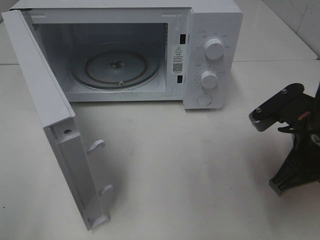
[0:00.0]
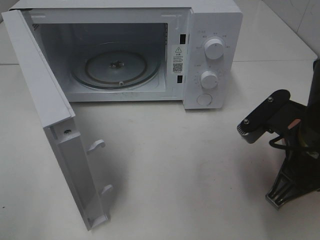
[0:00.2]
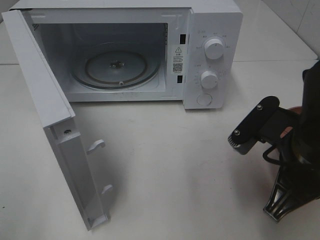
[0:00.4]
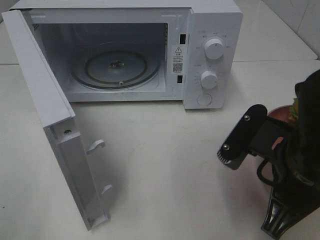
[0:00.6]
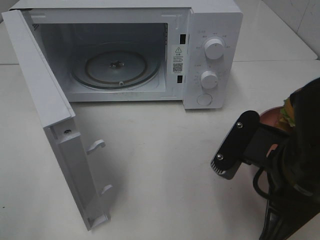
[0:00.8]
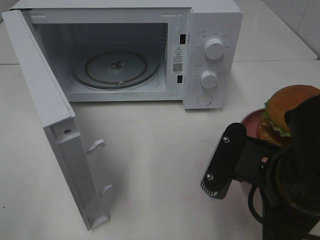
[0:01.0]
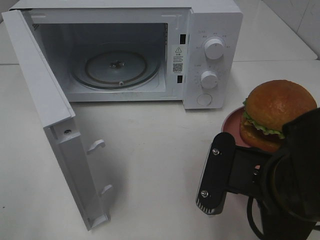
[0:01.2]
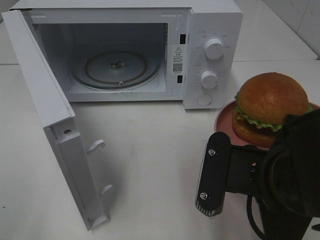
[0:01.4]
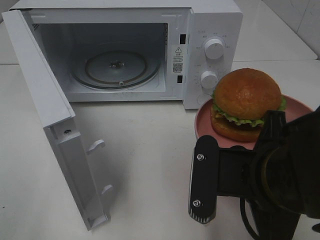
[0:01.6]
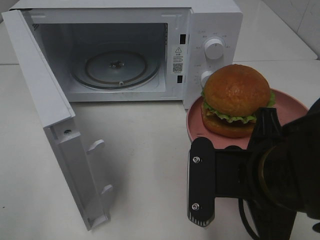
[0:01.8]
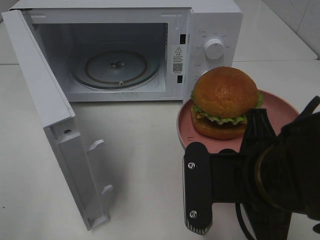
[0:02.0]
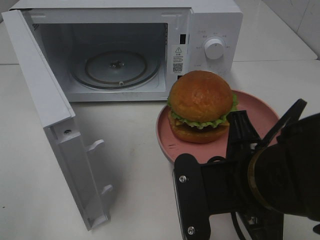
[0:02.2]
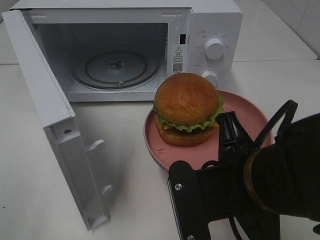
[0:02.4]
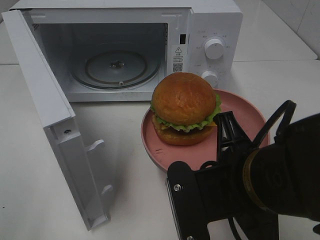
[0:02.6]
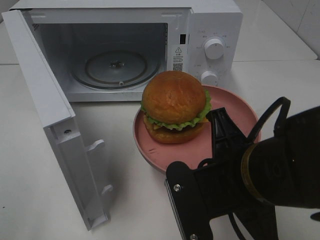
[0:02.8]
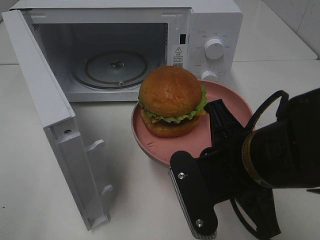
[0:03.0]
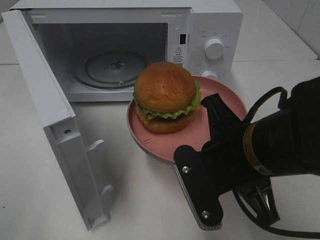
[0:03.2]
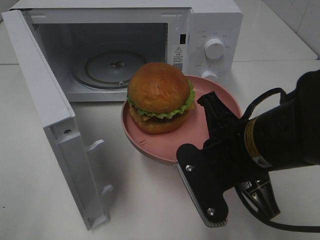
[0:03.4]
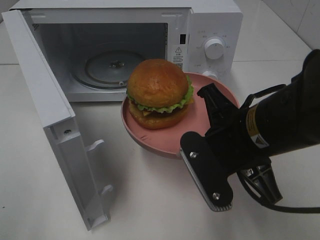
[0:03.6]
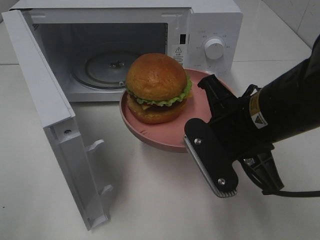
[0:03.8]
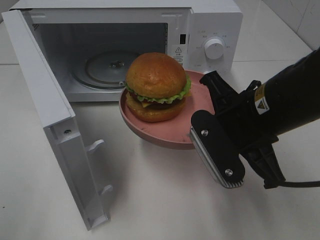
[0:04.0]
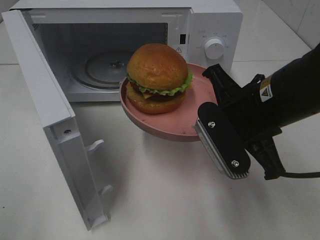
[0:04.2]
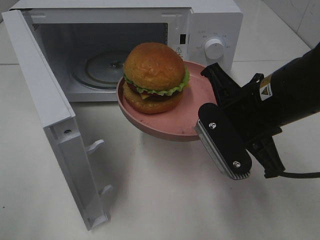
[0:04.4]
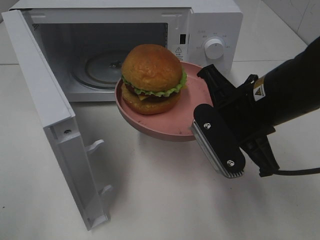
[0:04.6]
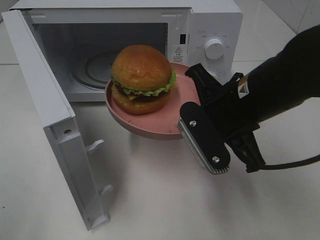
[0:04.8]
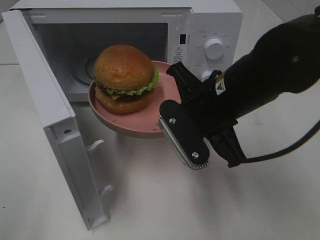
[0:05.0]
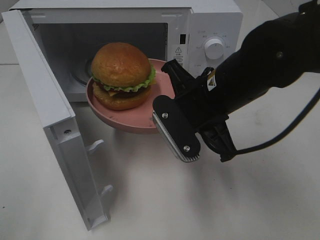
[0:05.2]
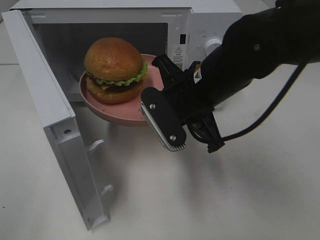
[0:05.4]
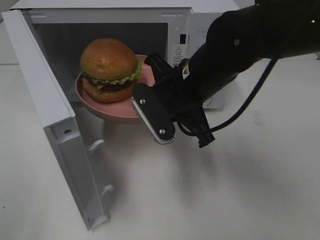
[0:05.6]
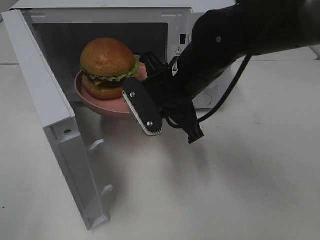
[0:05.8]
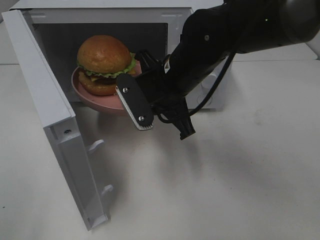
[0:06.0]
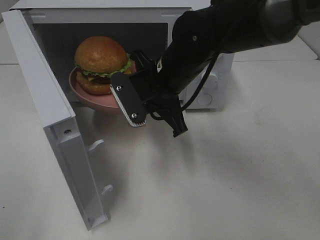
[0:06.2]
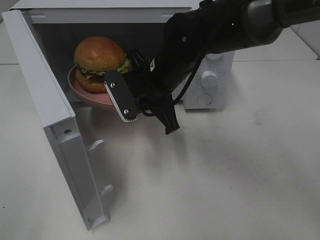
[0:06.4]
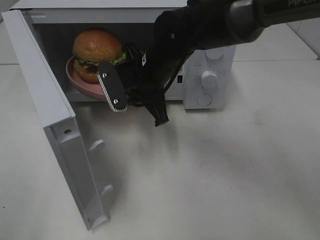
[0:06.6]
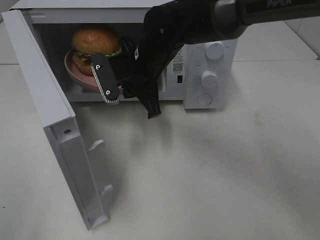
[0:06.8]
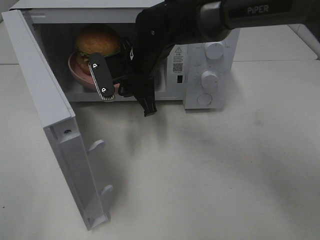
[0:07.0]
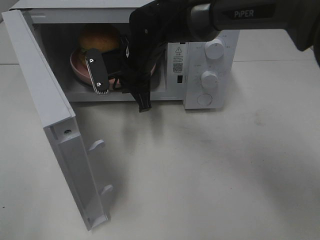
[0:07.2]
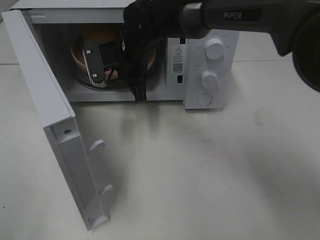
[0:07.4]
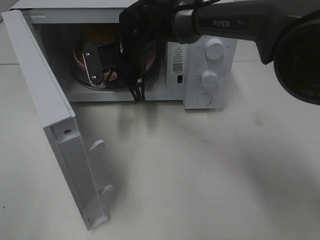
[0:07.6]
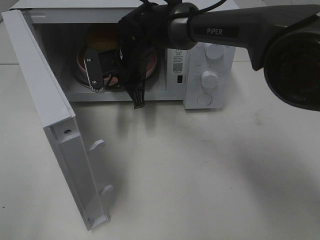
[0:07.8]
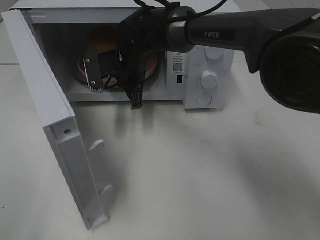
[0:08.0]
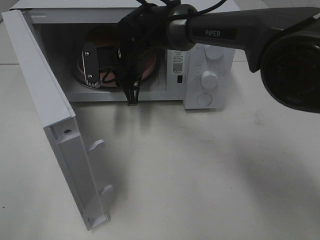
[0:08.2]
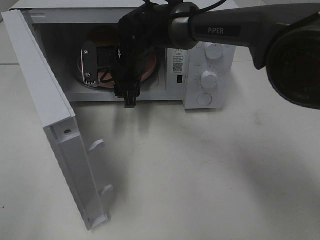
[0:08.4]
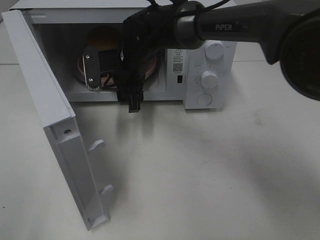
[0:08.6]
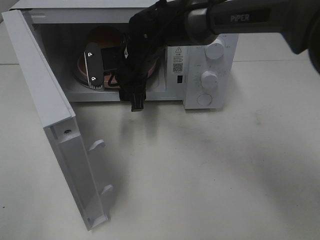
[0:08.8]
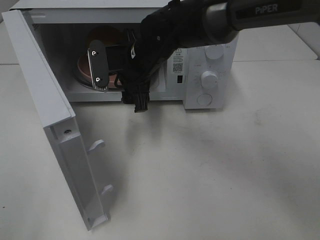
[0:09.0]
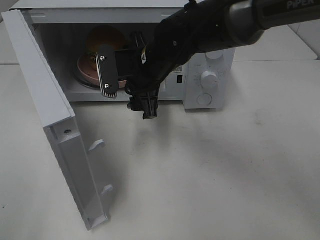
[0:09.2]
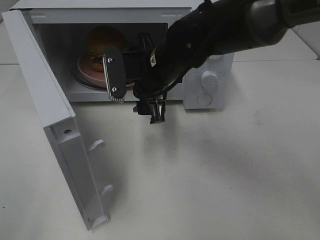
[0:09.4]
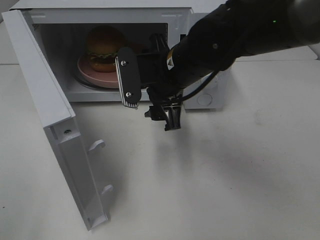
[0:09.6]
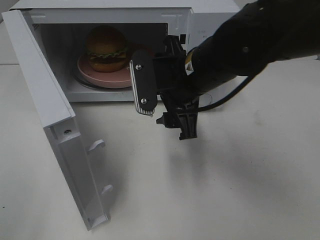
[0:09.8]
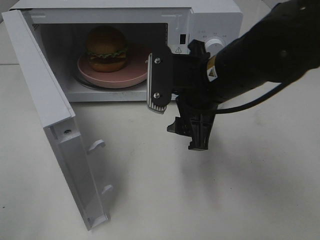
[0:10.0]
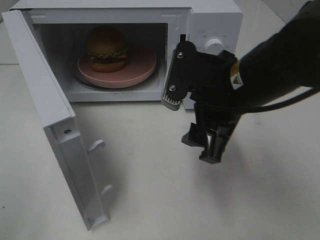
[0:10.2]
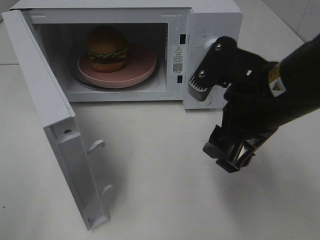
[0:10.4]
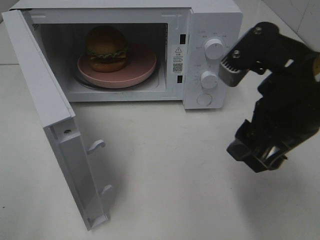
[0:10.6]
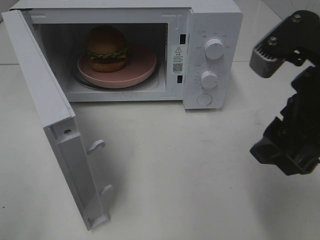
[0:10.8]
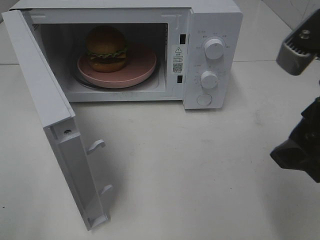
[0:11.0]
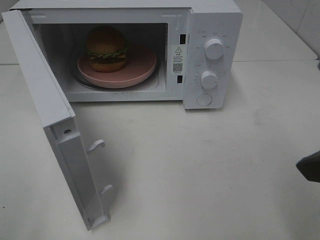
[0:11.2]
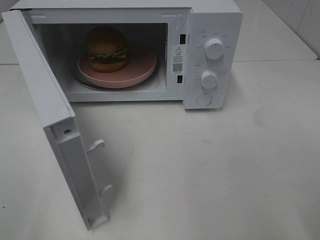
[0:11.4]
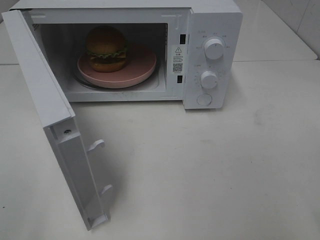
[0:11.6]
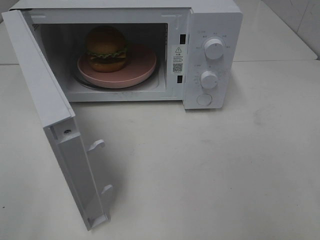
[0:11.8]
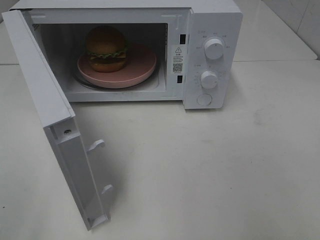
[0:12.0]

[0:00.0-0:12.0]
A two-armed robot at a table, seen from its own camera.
Task of the whole recording: Heat the burger.
Step, 0:00.0 to 0:08.6: Right hand: place the plate in the microwave.
0:00.0 to 0:01.6: The right gripper moves to the left and backward, approximately 10 cm.
0:03.0 to 0:04.4: The right gripper moves forward, about 5 cm.
0:04.4 to 0:06.0: The right gripper moves to the left and forward, about 15 cm.
0:06.0 to 0:07.6: The right gripper moves forward and to the left, some 15 cm.
0:07.6 to 0:09.0: The right gripper changes place by approximately 5 cm, and opens up.
0:09.0 to 0:10.4: The right gripper heads backward and to the right, covering some 25 cm.
0:10.4 to 0:12.0: The right gripper is displaced to the right and backward by about 20 cm.

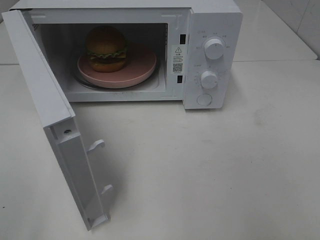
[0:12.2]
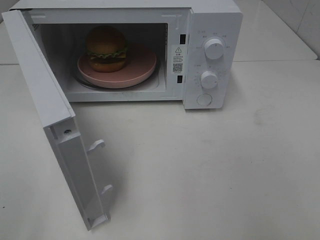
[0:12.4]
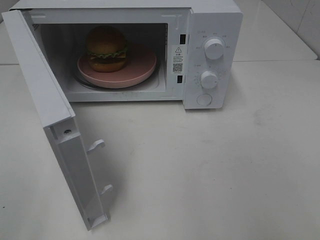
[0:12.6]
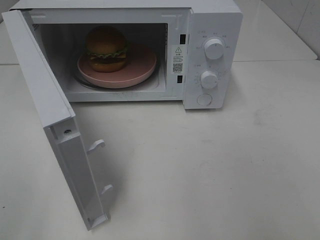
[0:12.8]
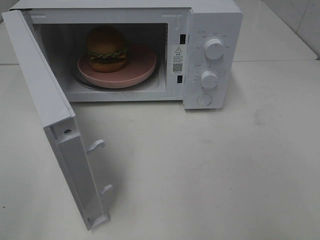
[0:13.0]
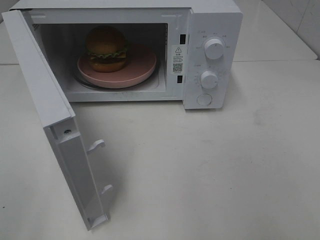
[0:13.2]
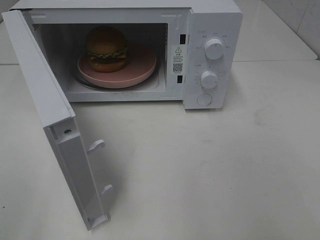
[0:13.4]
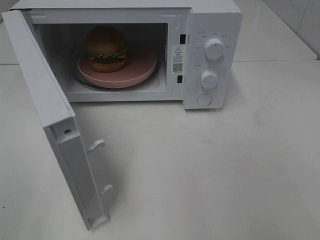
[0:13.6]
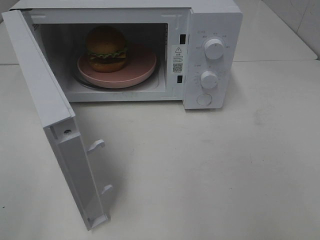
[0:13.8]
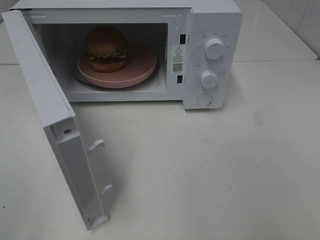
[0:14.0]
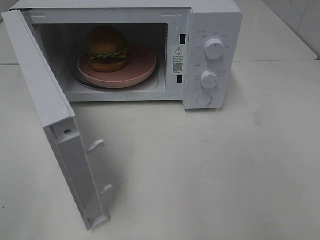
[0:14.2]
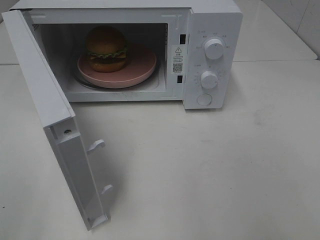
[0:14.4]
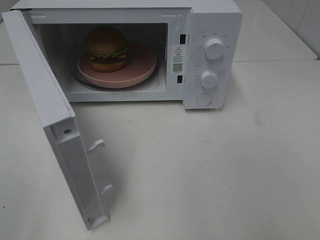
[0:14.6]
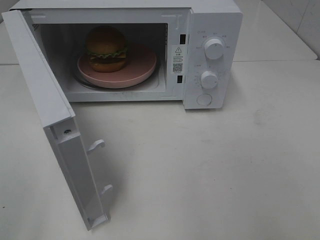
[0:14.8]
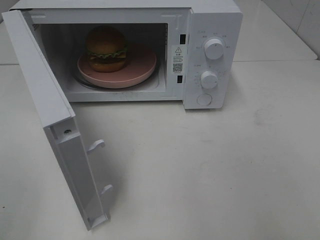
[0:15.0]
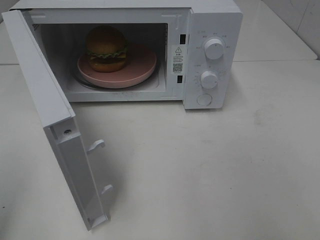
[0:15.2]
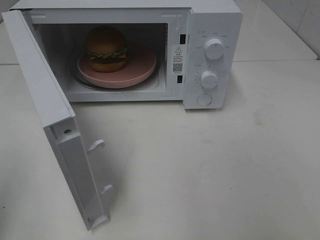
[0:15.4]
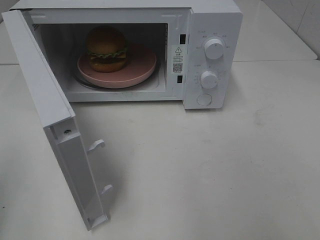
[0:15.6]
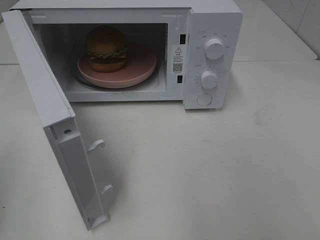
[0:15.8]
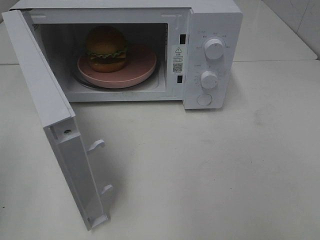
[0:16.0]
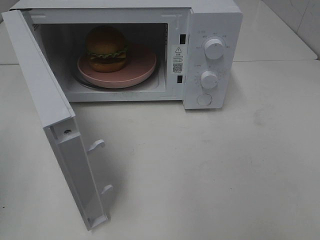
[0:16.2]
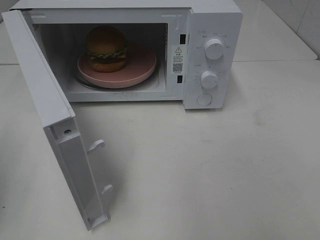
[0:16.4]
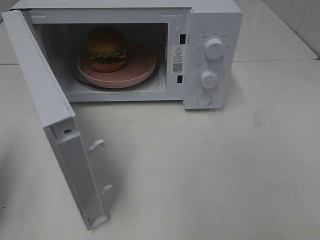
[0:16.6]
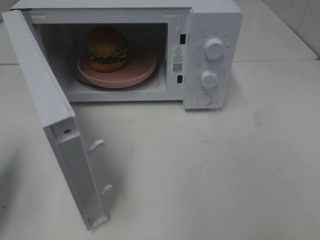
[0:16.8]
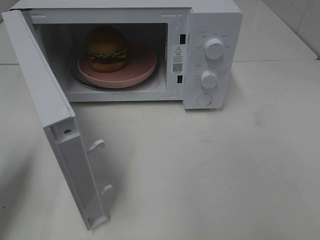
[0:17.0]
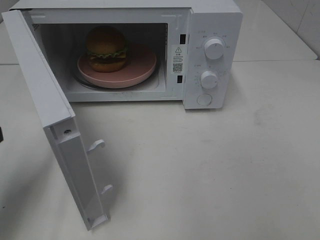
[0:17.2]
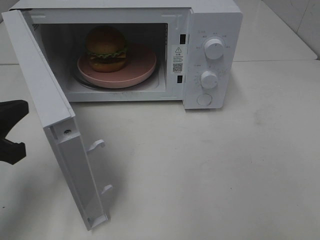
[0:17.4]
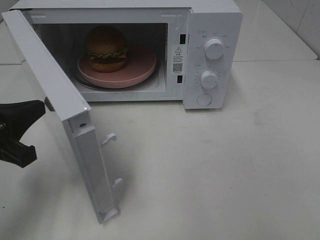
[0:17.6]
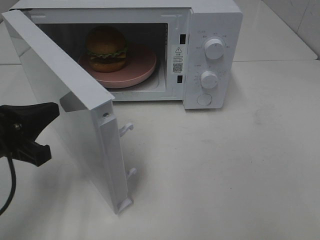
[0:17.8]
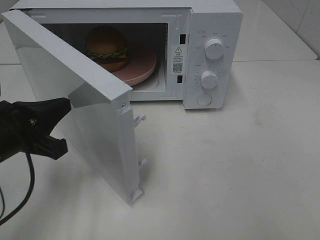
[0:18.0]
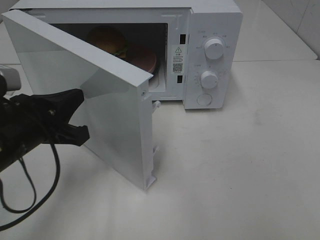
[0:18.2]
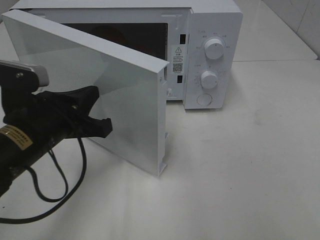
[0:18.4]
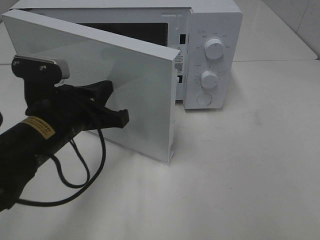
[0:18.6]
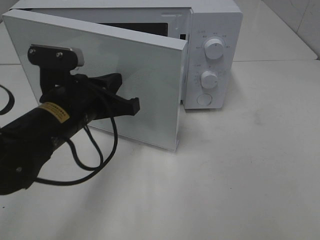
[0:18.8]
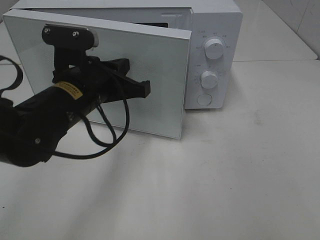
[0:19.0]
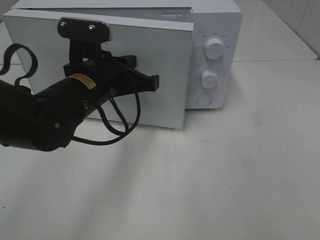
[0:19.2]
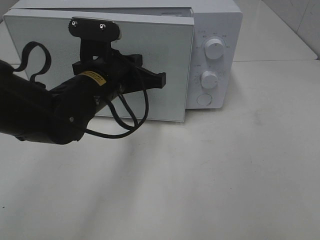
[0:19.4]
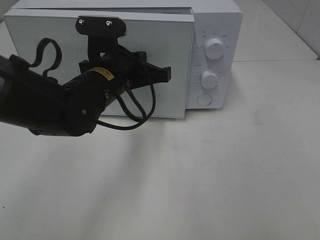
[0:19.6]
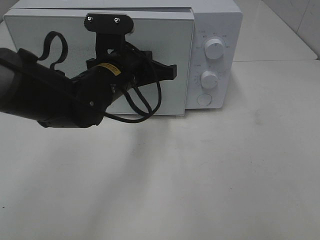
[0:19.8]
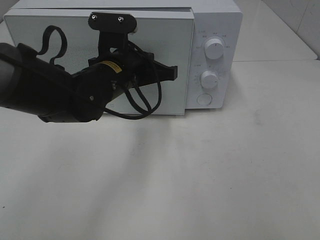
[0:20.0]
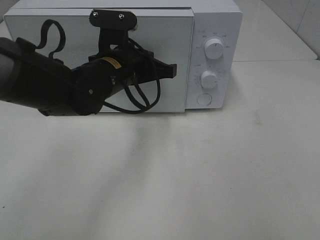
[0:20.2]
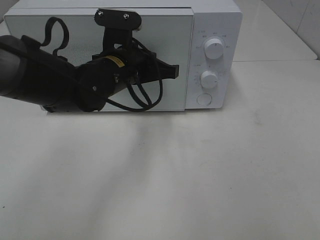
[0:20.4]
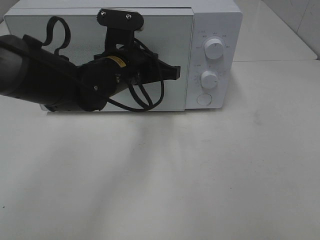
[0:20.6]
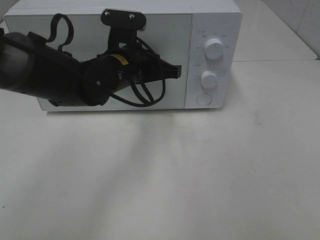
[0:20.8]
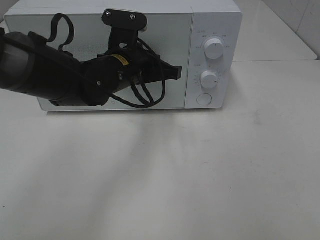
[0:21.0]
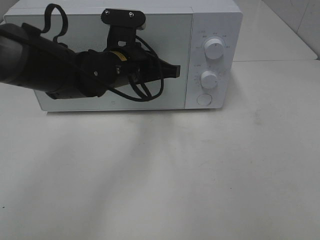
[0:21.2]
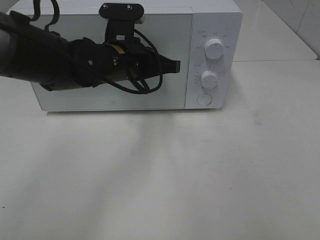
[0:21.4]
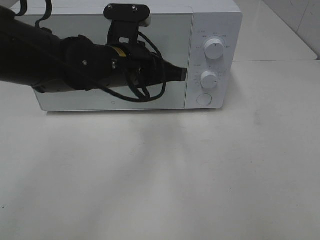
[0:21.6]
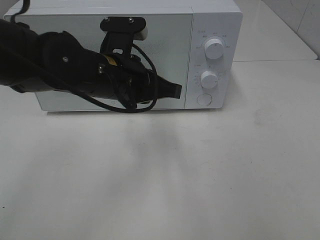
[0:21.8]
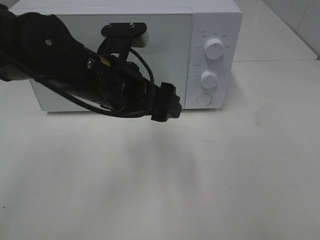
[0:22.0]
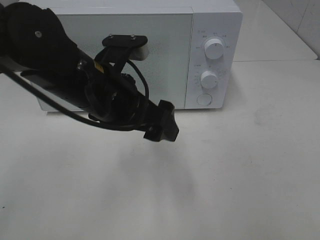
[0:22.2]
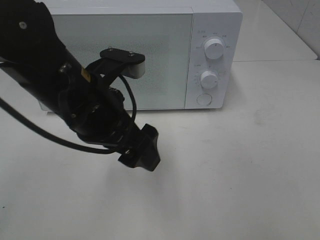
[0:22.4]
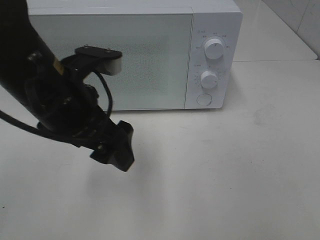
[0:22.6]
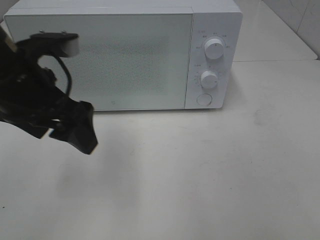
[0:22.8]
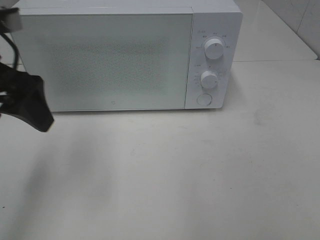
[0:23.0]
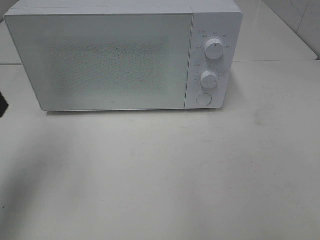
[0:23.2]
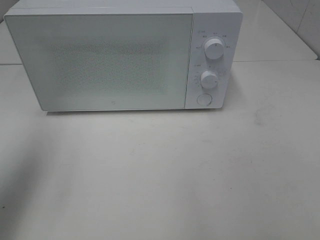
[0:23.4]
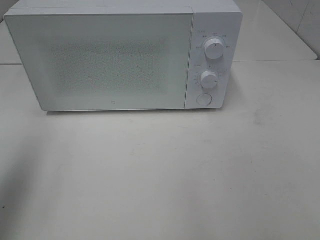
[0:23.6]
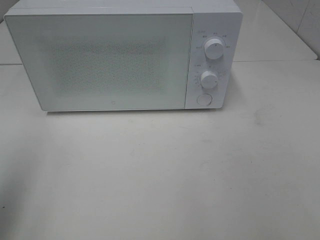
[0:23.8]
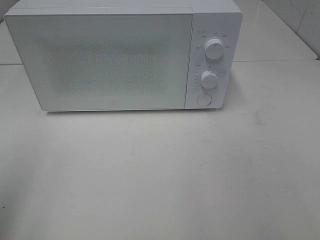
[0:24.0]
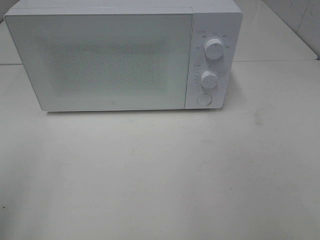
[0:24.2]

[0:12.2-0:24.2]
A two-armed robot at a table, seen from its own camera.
Task of the whole recording: Heat the burger.
Step, 0:12.2 to 0:21.8: Left hand: close the microwave door.
0:16.6 to 0:18.2: The left gripper is displaced to the right and downward by roughly 15 cm.
0:18.2 to 0:19.8: The left gripper heads to the right and forward, covering about 15 cm.
0:19.8 to 0:21.2: The grippers move only a little.
0:21.2 to 0:22.6: The left gripper travels backward, to the left and upward by approximately 15 cm, and opens.
0:22.6 to 0:24.2: The left gripper travels to the left and backward by some 25 cm.
